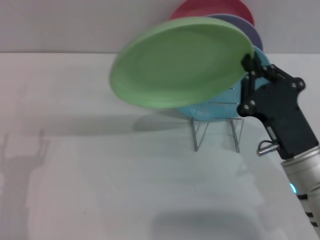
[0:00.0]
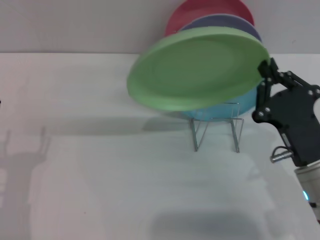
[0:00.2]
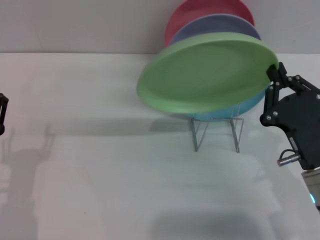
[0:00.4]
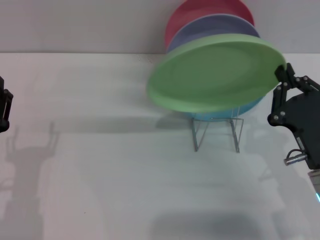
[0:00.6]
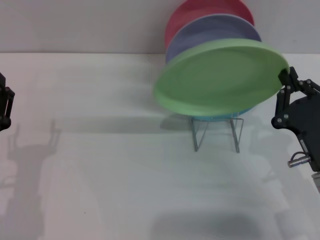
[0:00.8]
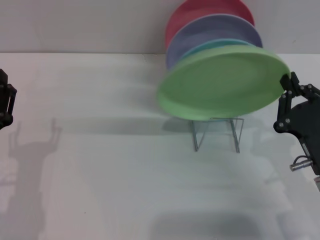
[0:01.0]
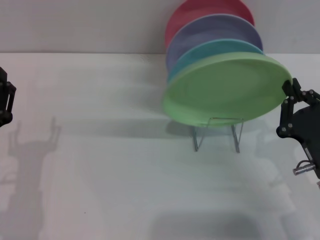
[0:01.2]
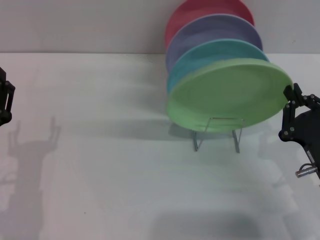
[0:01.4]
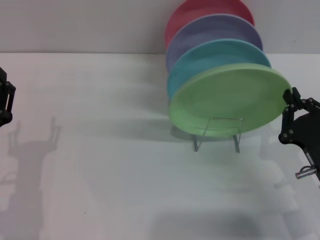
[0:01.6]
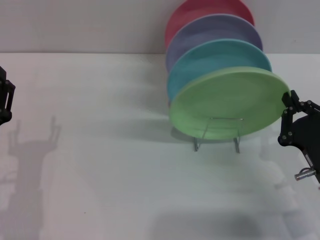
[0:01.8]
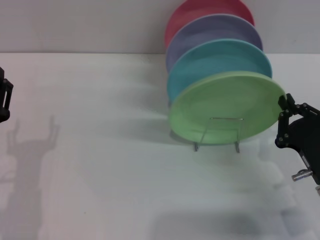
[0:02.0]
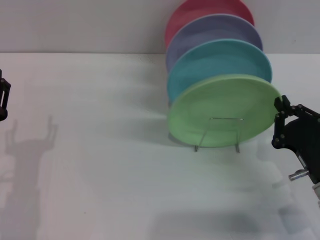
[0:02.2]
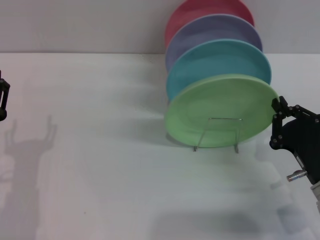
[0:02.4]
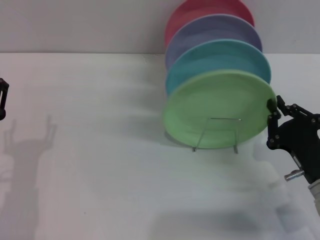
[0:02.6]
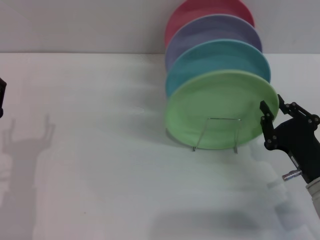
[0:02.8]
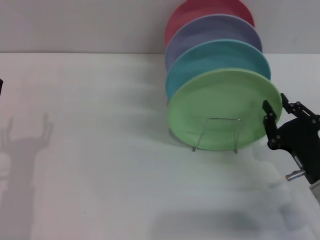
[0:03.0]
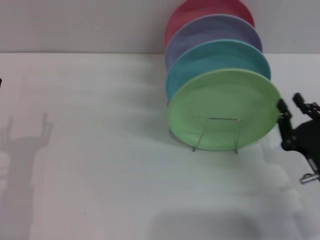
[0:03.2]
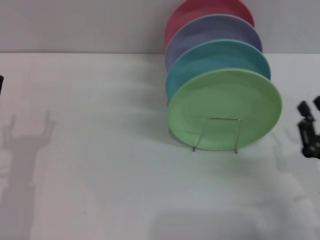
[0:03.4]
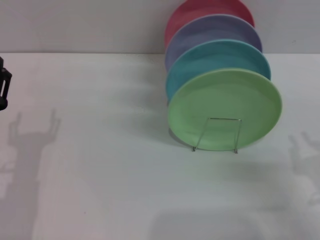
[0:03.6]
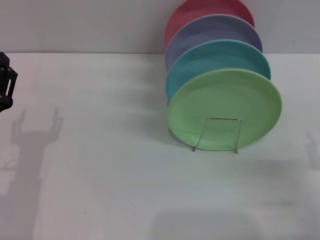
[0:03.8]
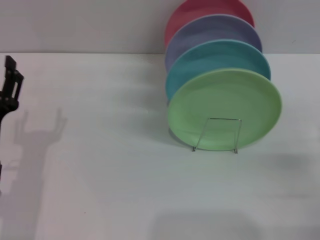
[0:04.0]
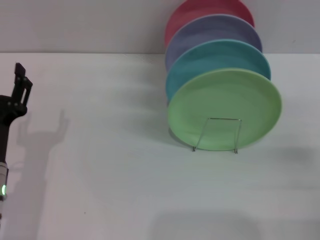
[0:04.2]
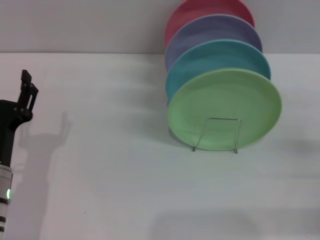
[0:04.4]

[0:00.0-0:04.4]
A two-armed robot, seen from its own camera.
Task of the whole recording: Grip the plate with one hand, pass it to the other, then set it on the shelf.
Step, 0:00.0 to 0:03.2: Place the plate on the shelf with the right gripper.
0:00.0 to 0:01.4: The right gripper is displaced to the right by some 5 cm.
0:01.4 to 0:03.0: There are only small adjustments of the grippers.
0:03.0 to 0:04.4: The right gripper shifts approximately 10 cm to the right, and opens.
